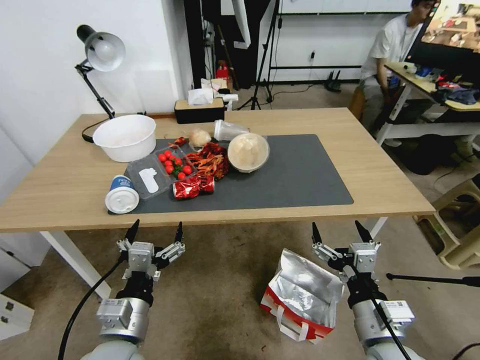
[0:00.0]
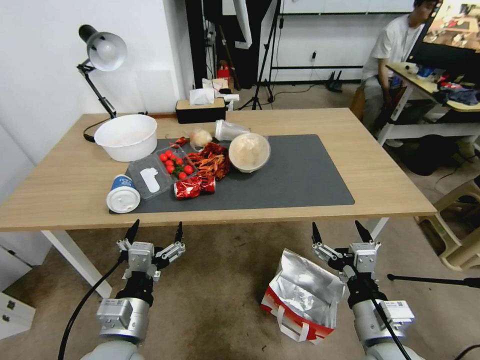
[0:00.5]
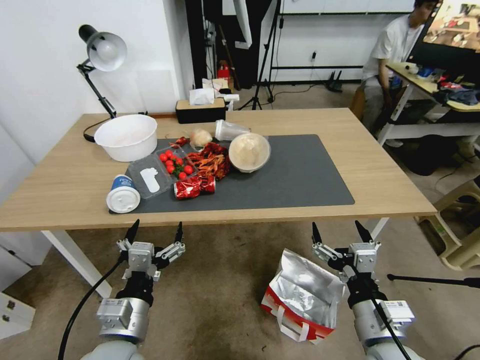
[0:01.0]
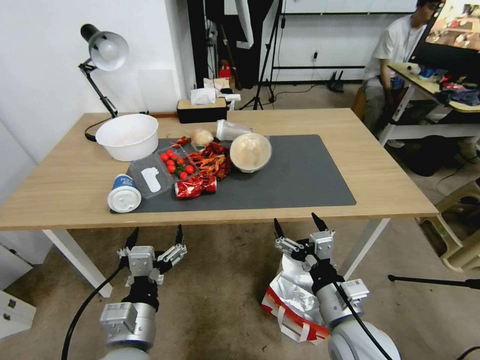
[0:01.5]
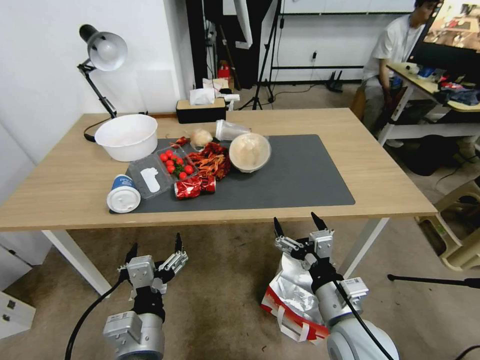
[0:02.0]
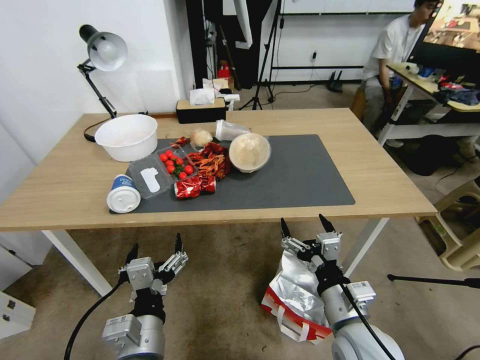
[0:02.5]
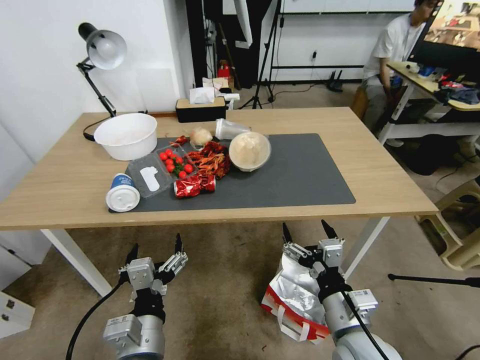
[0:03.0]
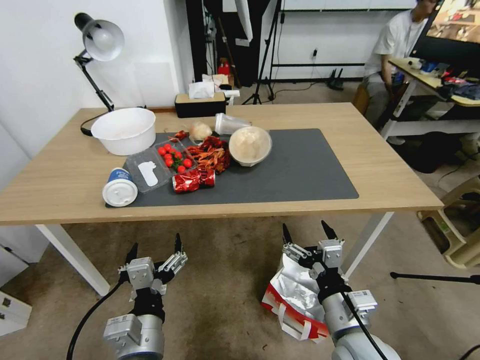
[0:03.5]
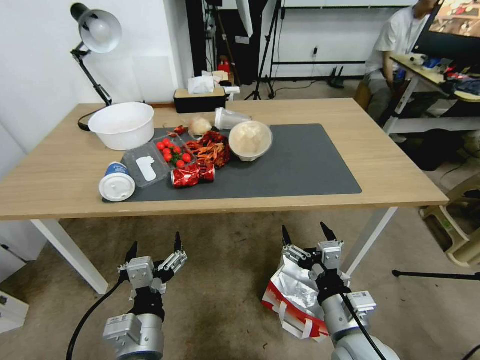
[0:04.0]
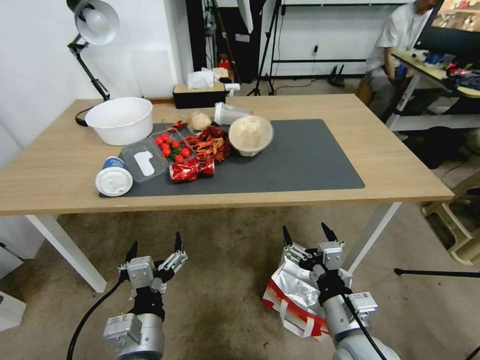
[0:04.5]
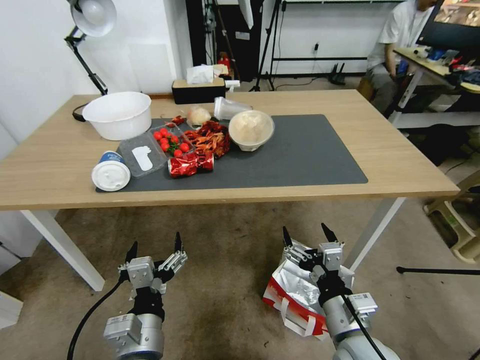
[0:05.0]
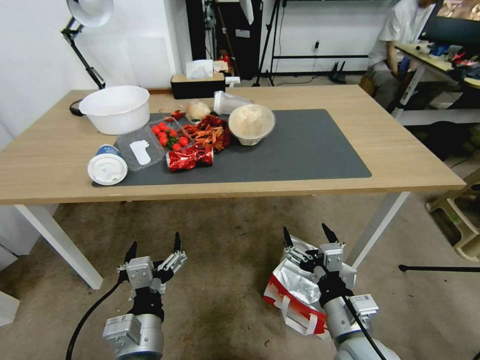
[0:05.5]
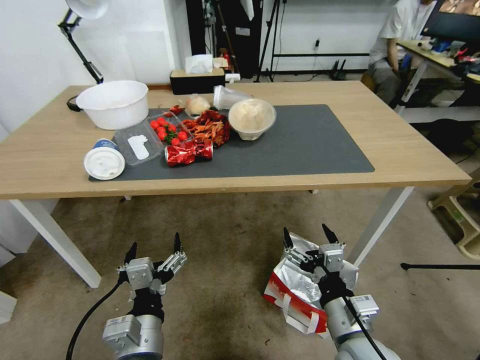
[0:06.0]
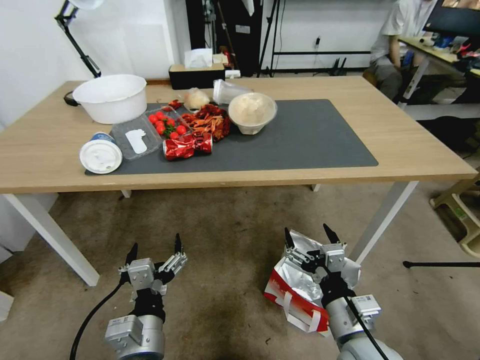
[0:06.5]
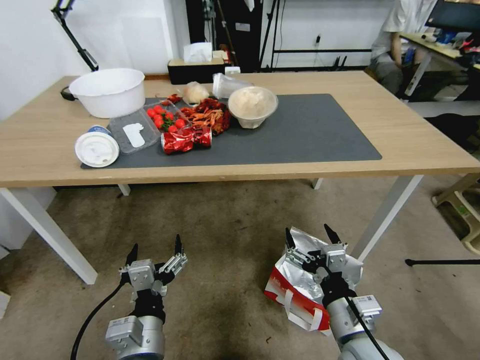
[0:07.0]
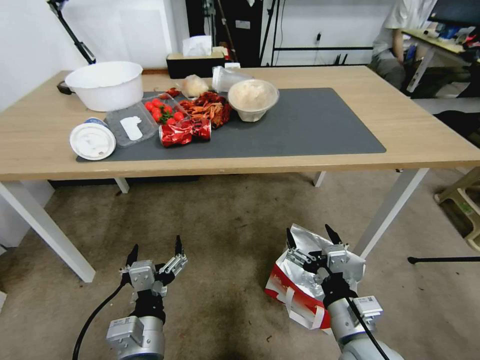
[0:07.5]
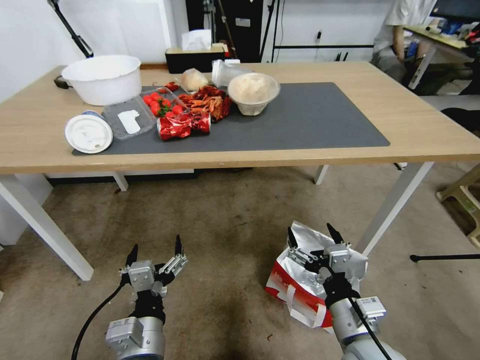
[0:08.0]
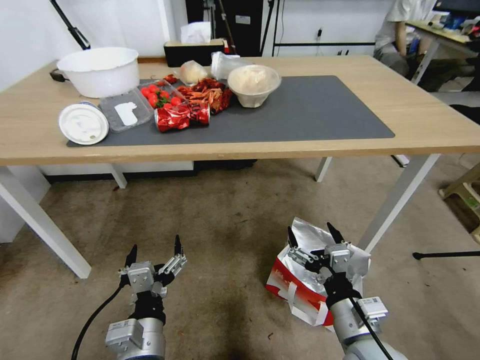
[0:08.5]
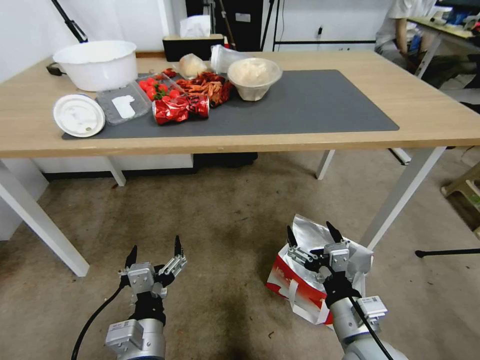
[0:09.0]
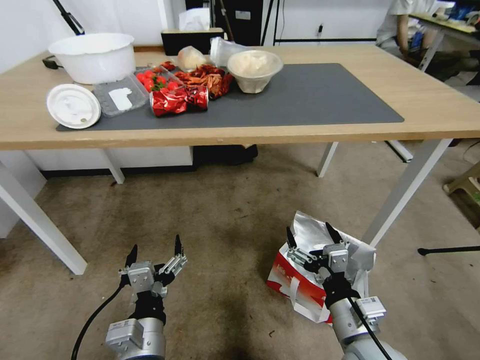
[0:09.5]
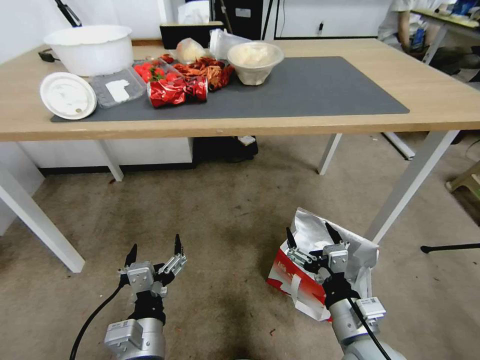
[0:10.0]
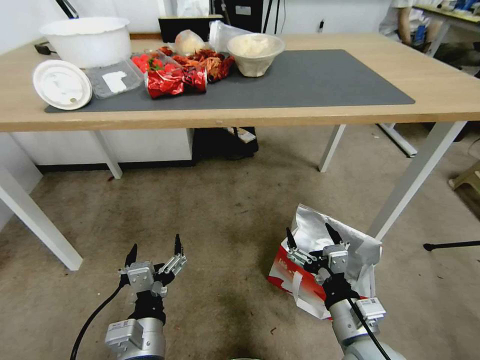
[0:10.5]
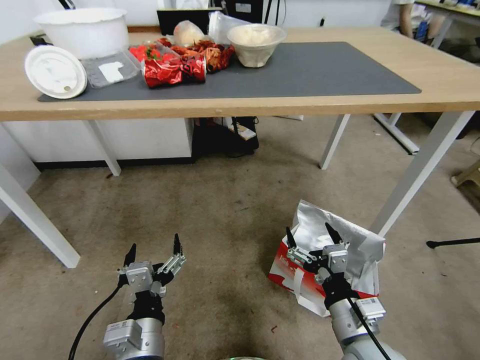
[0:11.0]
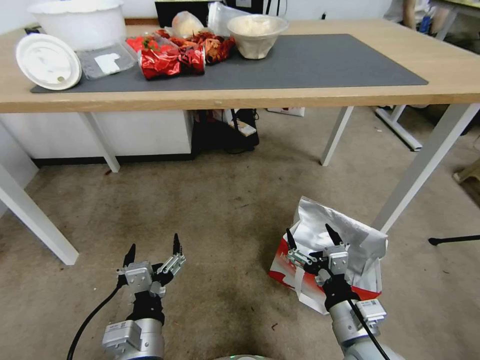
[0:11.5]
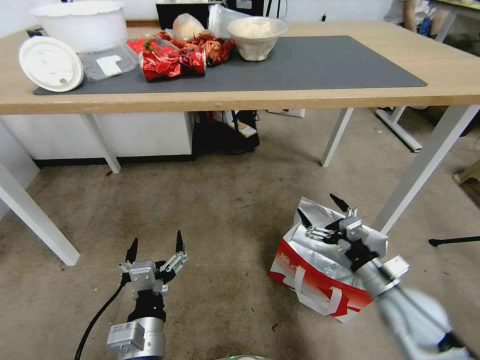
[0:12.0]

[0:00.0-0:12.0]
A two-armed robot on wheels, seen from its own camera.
Task of the whole recording: Pick up the food delivery bag from the floor and place it on the table.
0:10.0 to 0:12.0: The right gripper goes about 15 cm to the right and forward.

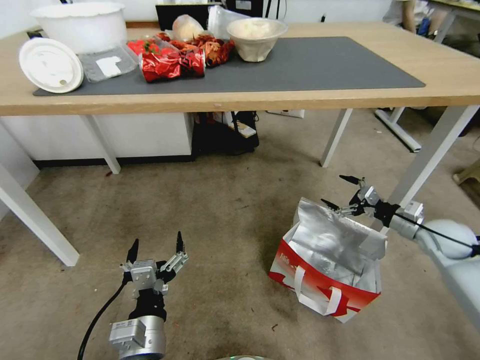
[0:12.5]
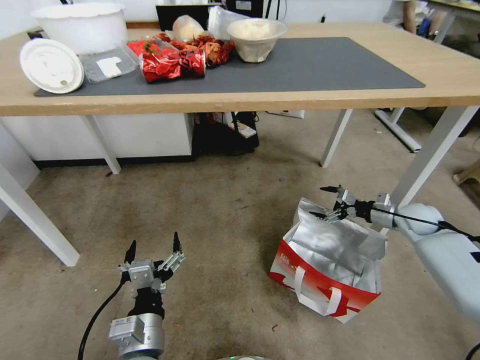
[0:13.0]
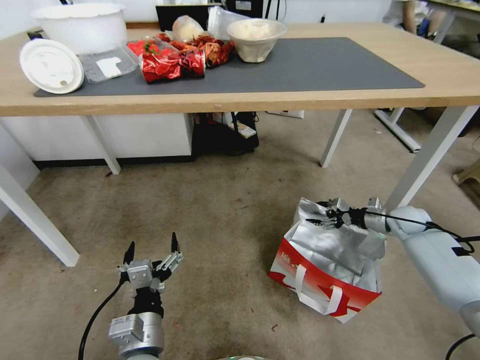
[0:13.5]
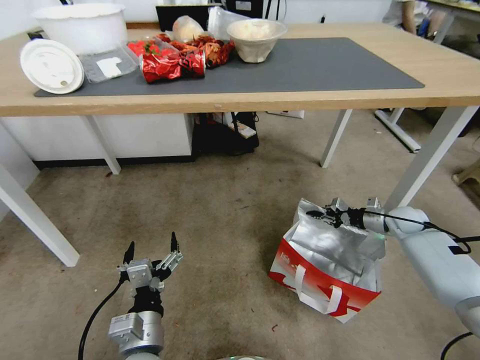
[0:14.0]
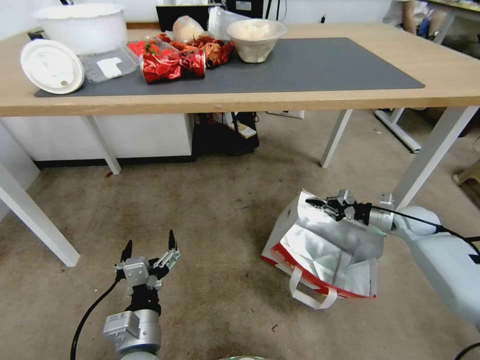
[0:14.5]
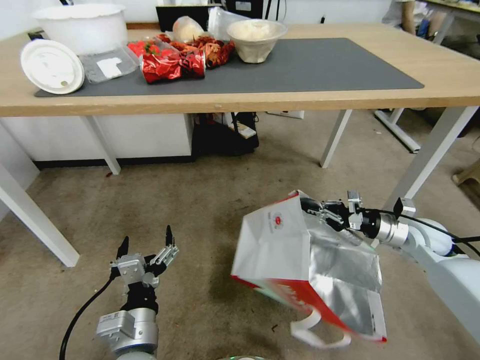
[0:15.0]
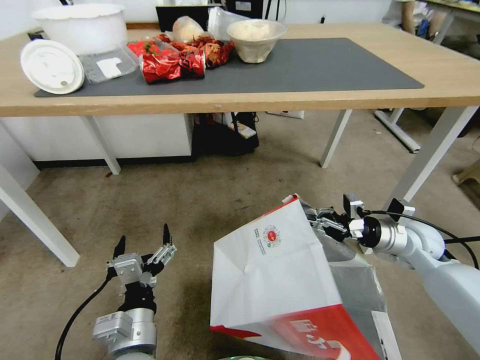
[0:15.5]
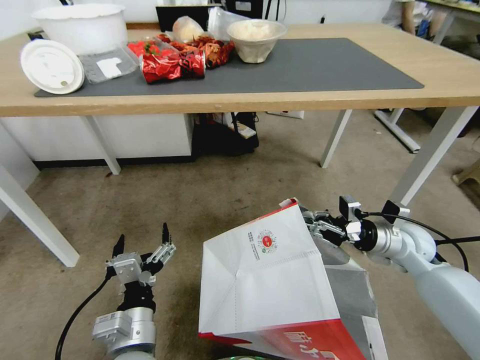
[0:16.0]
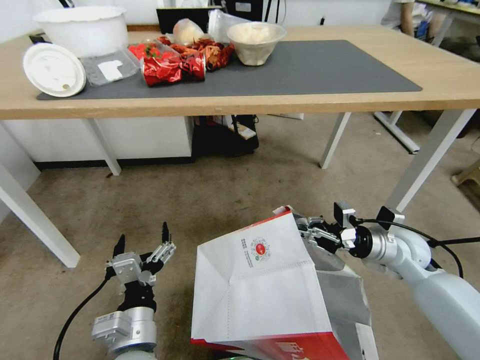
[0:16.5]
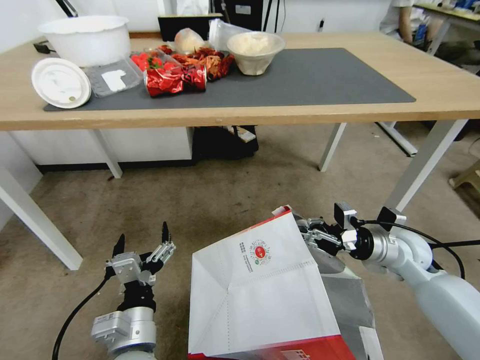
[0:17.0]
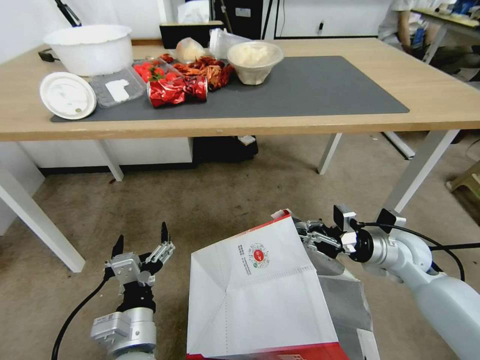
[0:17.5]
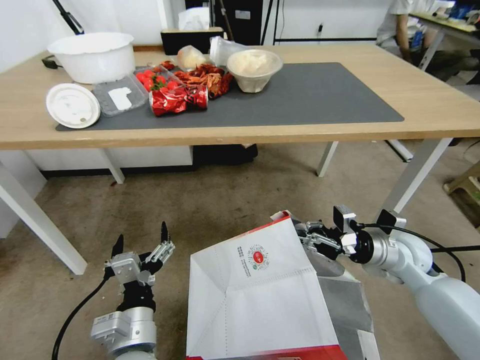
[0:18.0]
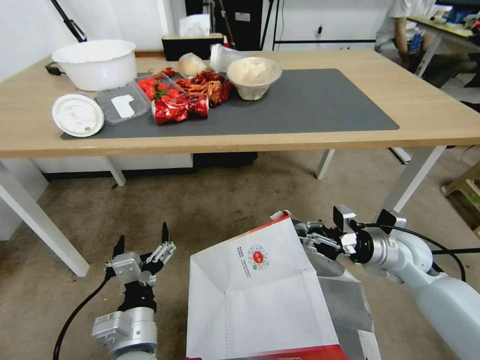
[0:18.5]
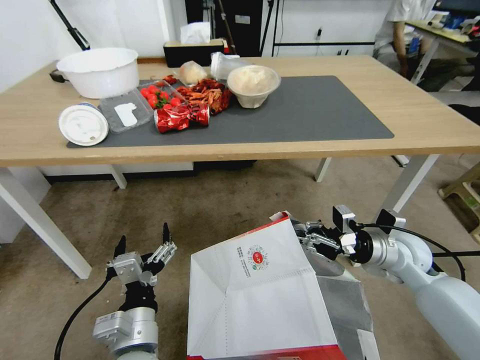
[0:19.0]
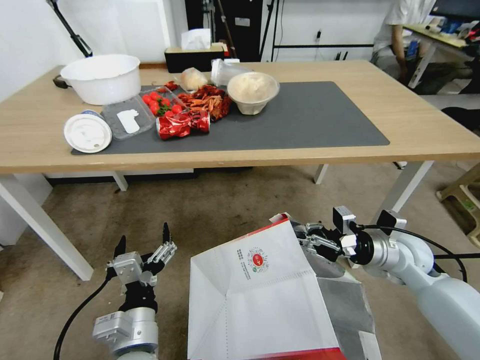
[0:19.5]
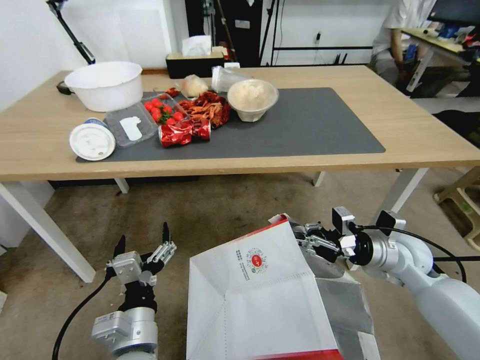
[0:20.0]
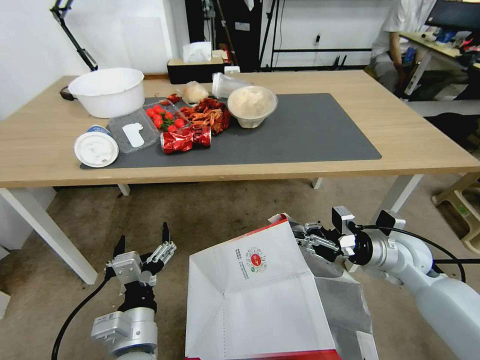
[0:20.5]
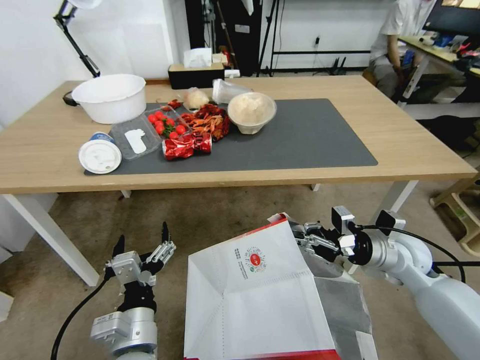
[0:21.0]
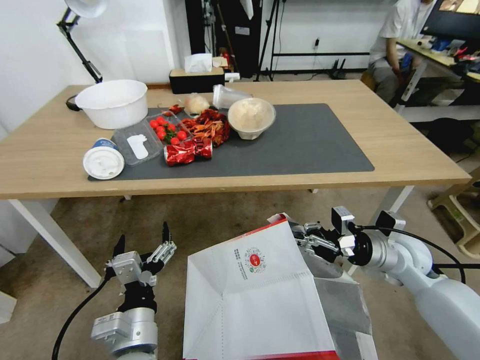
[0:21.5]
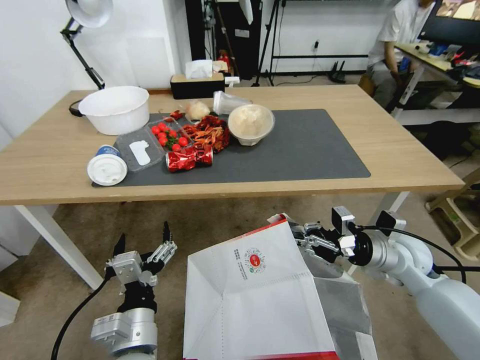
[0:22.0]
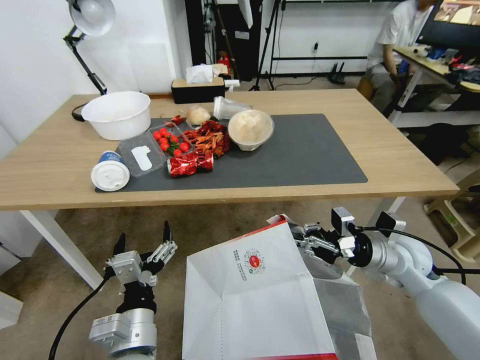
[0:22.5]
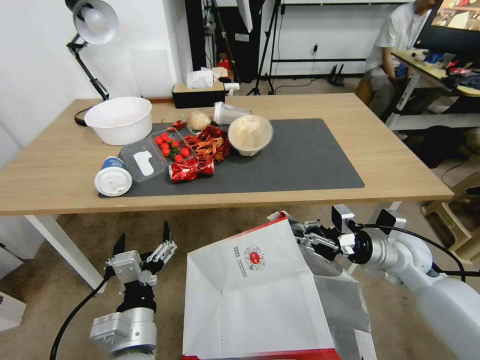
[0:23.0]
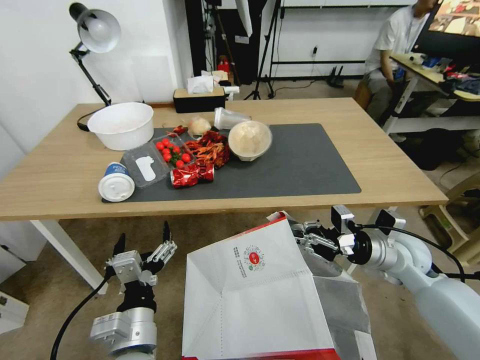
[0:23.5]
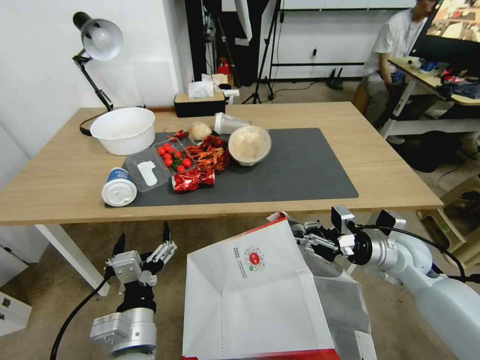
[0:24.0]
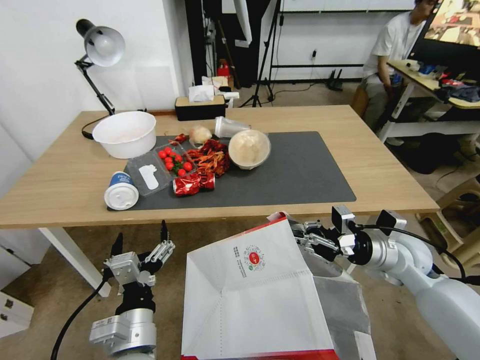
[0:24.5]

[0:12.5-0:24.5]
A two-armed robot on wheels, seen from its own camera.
Task of the whole recording: Pick up the food delivery bag from the floor and place it on the table.
0:12.5 to 0:14.5: The right gripper is displaced forward by about 5 cm, and closes its fingers.
0:14.5 to 0:16.5: The right gripper moves to the left and backward, roughly 15 cm.

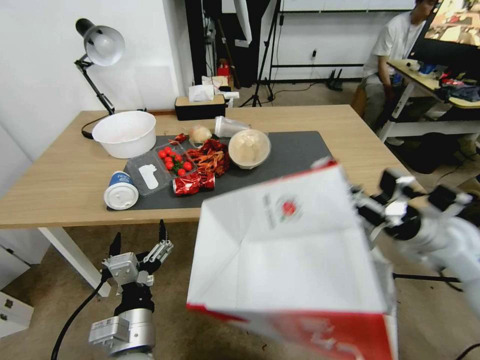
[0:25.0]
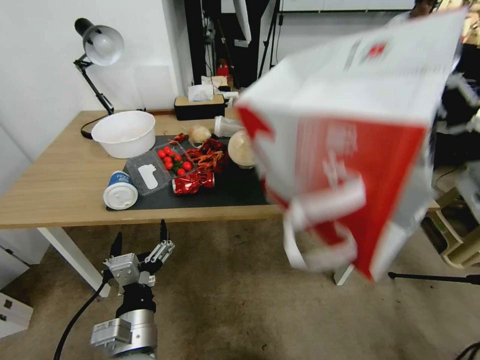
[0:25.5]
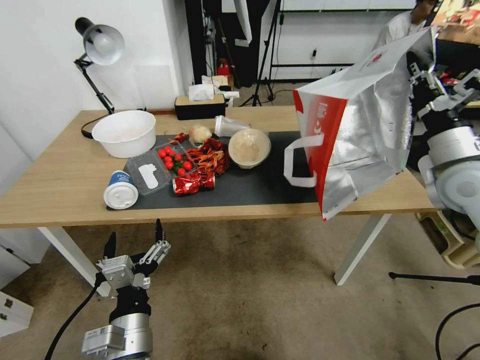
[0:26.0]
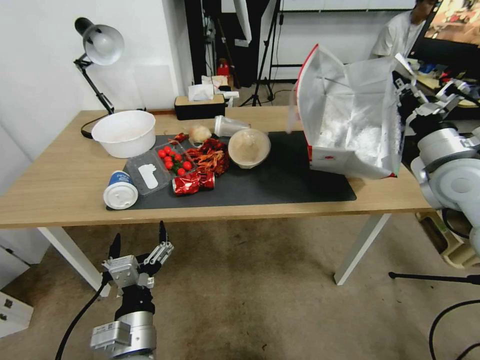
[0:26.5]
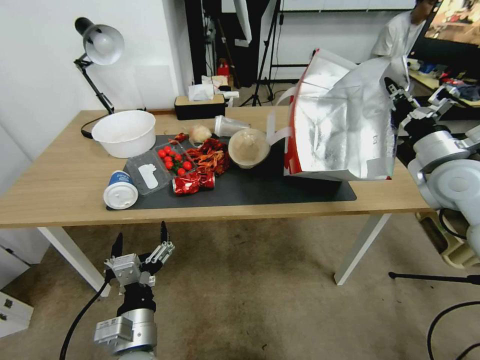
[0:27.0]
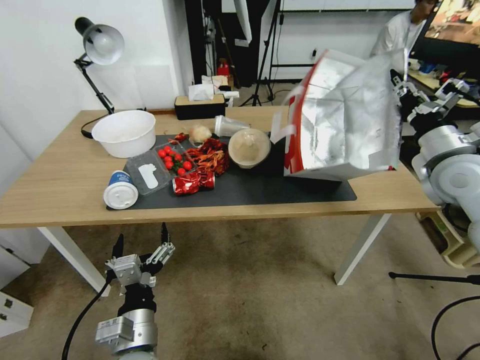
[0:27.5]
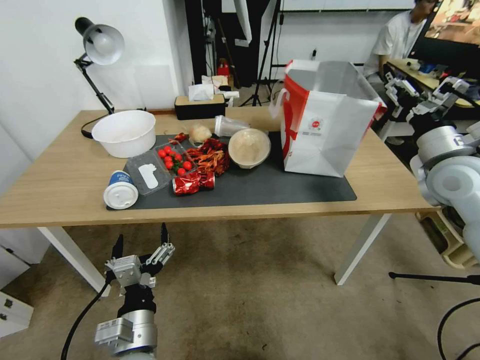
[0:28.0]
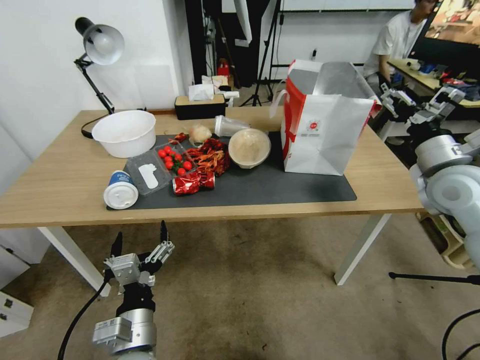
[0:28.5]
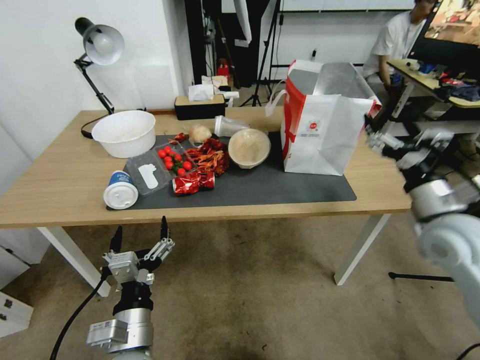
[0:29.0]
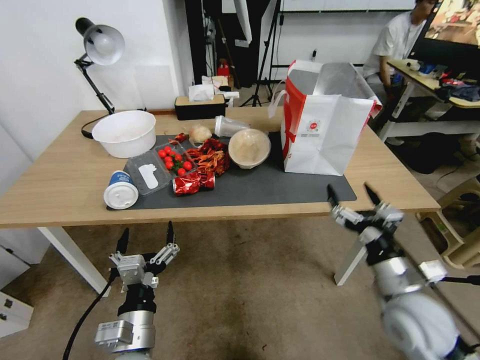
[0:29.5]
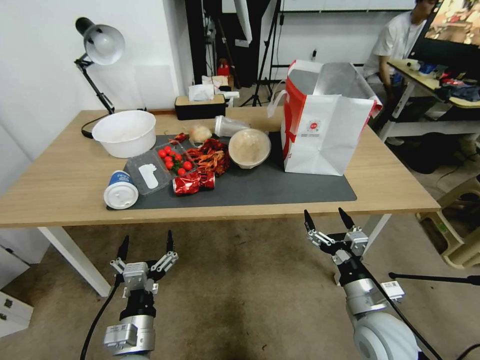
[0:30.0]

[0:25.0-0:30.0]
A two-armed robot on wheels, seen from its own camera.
Task of the whole recording: Pick up the food delivery bag from the floor and place it on the table.
0:25.0 to 0:27.5: The right gripper heads upward and forward, covering approximately 10 cm.
0:27.5 to 0:30.0: The right gripper travels downward, backward and to the left by some 35 cm, and opens its fingers.
